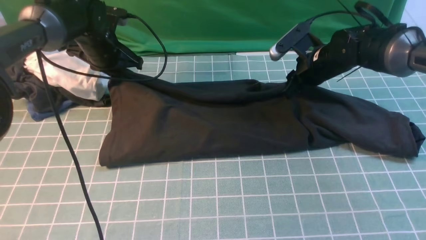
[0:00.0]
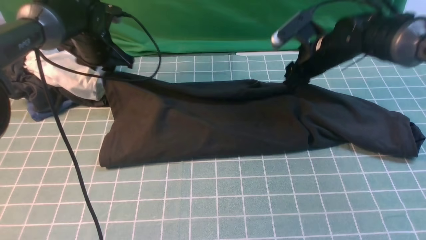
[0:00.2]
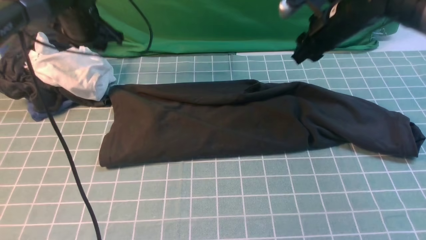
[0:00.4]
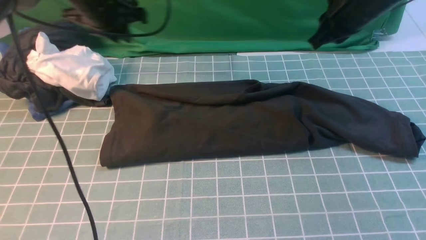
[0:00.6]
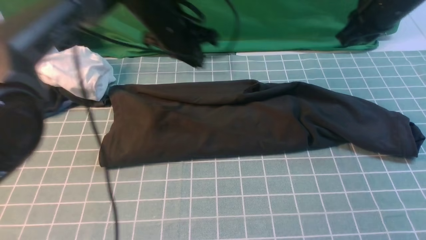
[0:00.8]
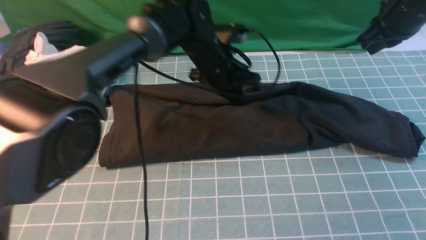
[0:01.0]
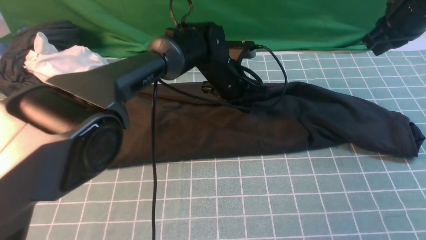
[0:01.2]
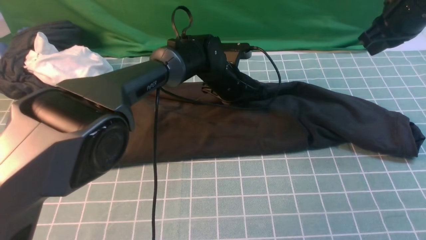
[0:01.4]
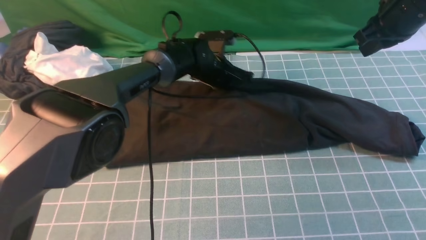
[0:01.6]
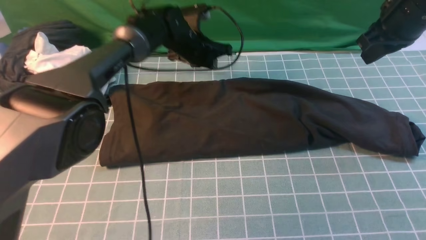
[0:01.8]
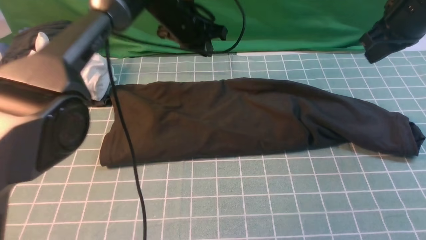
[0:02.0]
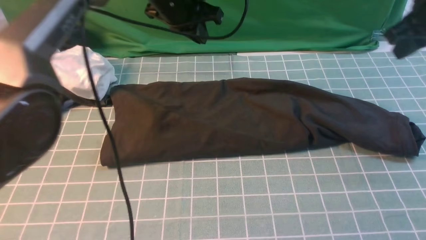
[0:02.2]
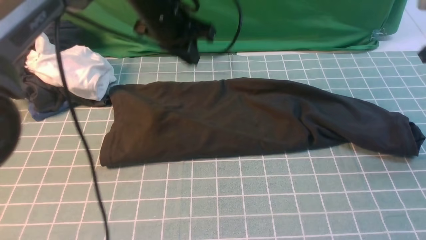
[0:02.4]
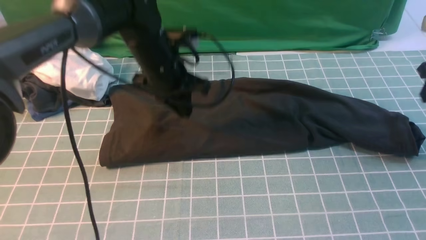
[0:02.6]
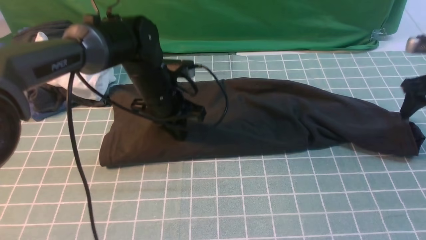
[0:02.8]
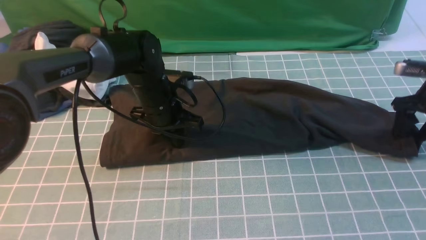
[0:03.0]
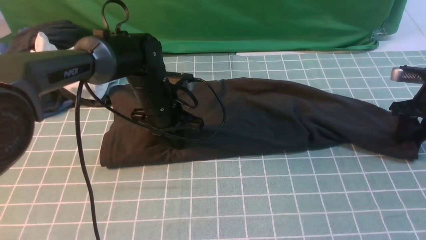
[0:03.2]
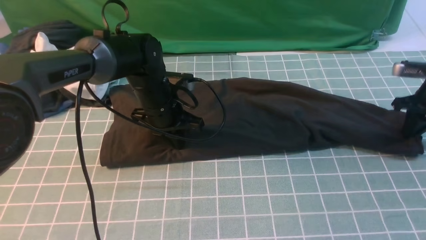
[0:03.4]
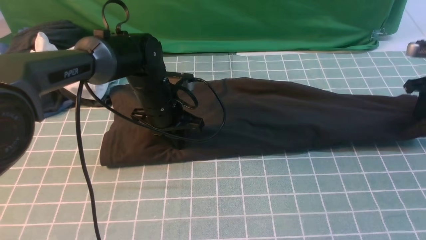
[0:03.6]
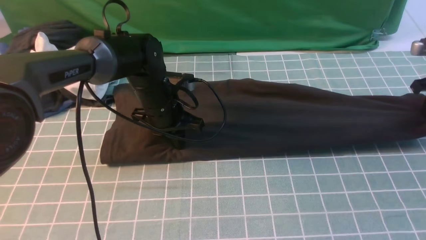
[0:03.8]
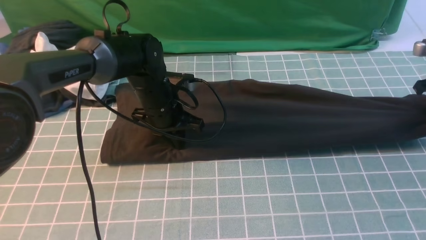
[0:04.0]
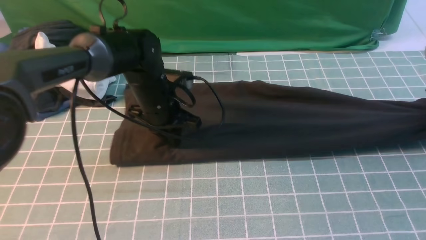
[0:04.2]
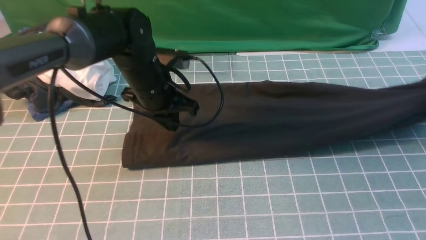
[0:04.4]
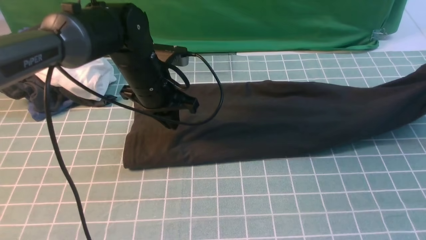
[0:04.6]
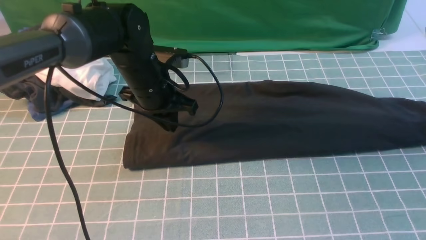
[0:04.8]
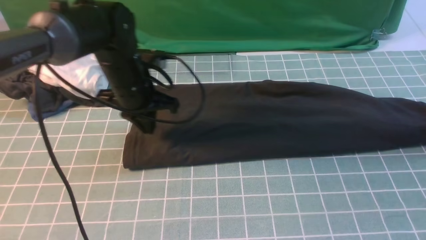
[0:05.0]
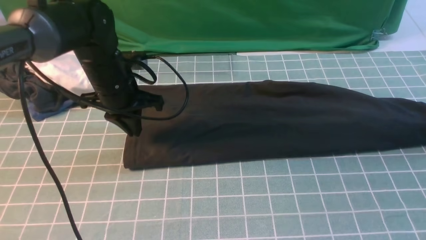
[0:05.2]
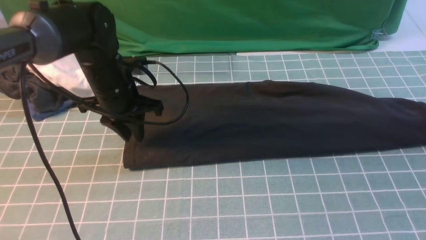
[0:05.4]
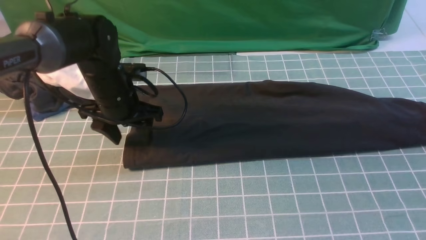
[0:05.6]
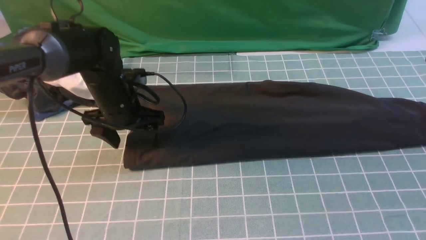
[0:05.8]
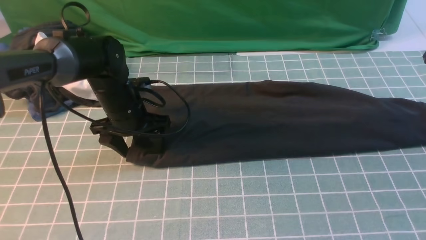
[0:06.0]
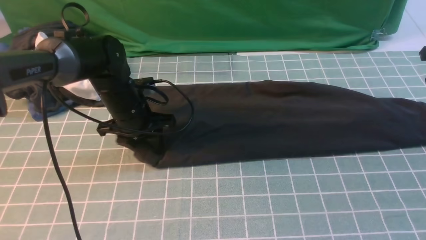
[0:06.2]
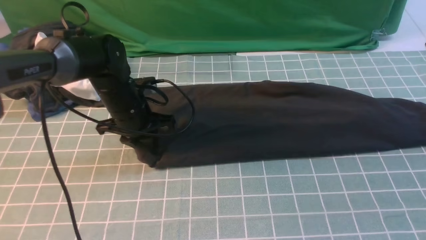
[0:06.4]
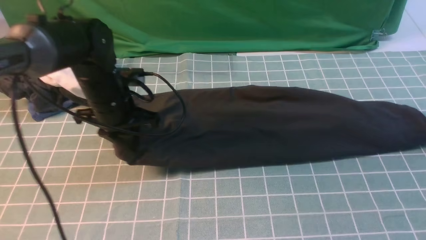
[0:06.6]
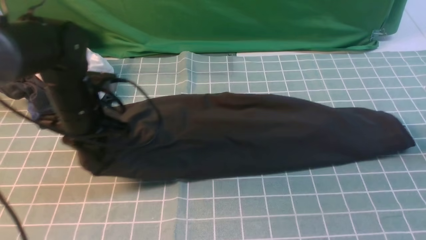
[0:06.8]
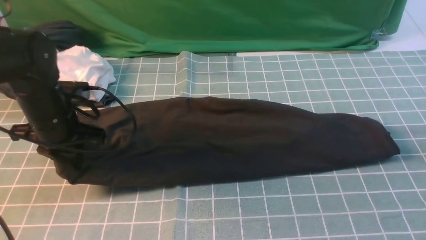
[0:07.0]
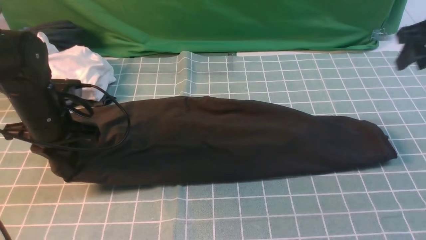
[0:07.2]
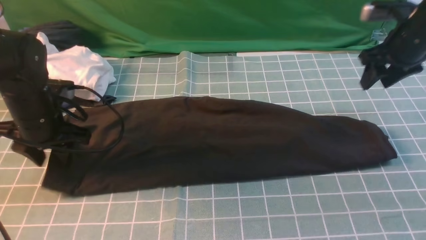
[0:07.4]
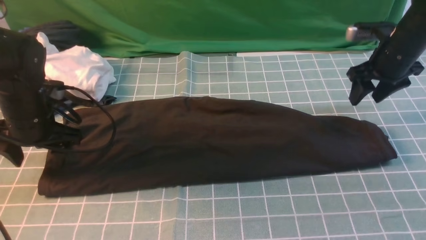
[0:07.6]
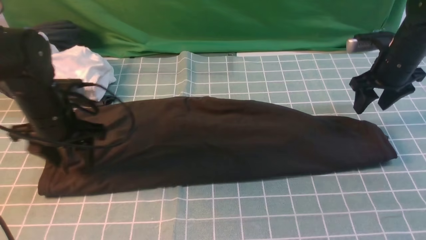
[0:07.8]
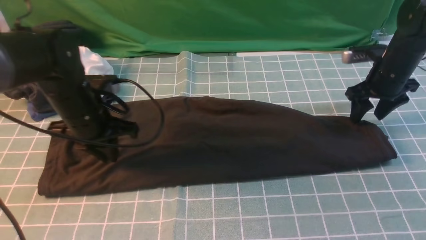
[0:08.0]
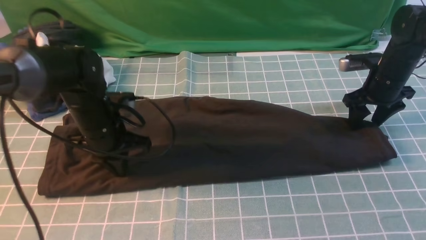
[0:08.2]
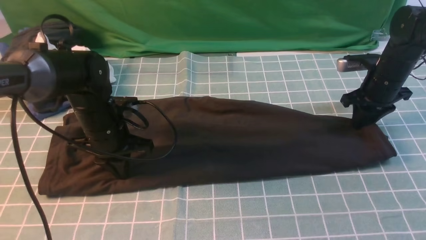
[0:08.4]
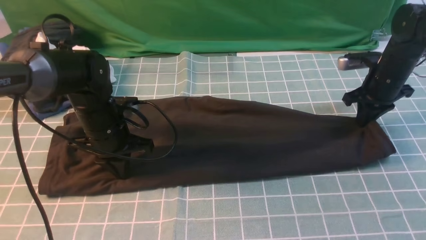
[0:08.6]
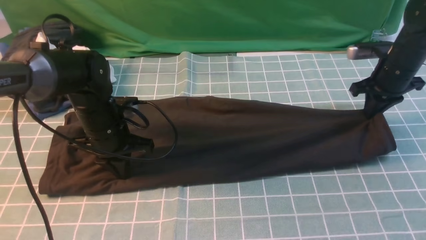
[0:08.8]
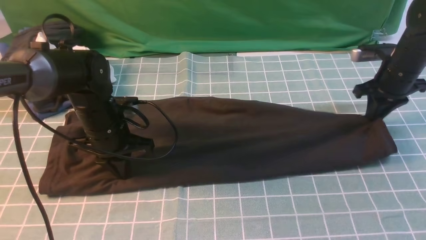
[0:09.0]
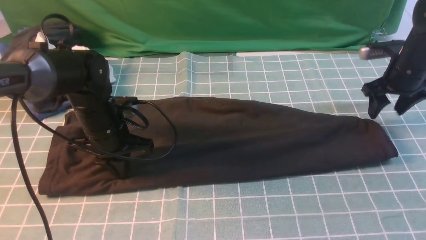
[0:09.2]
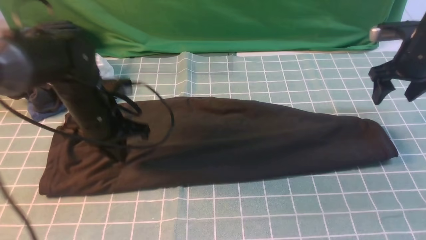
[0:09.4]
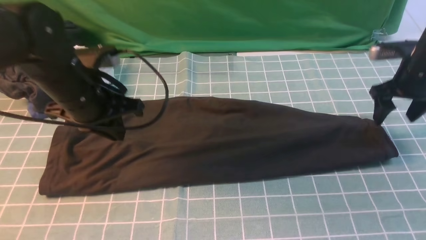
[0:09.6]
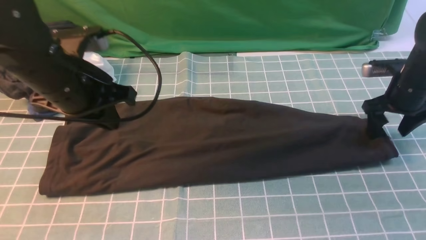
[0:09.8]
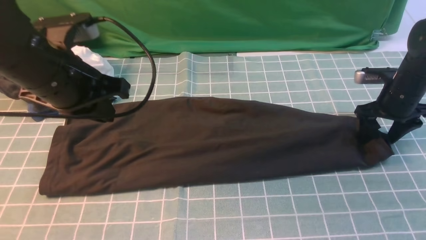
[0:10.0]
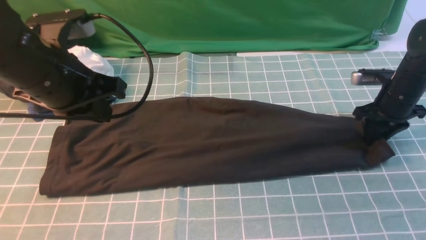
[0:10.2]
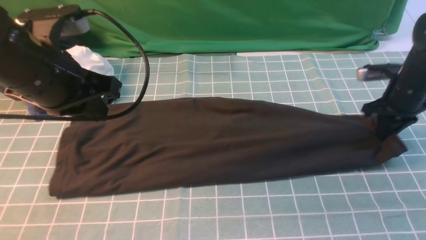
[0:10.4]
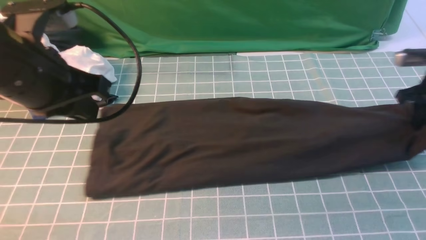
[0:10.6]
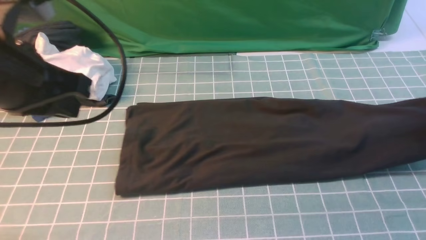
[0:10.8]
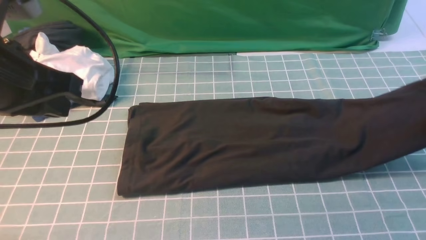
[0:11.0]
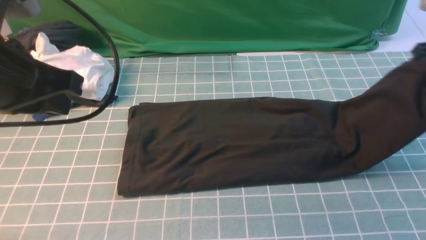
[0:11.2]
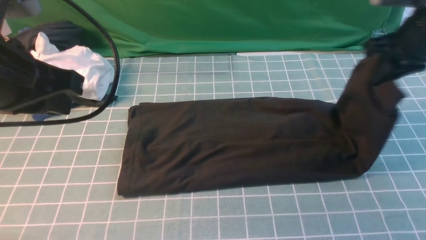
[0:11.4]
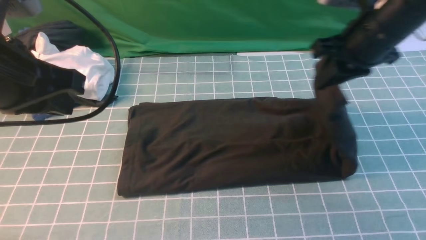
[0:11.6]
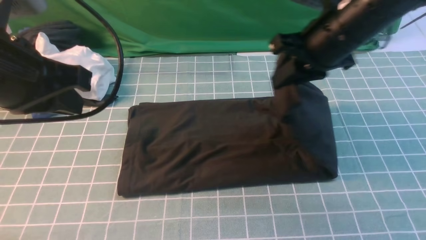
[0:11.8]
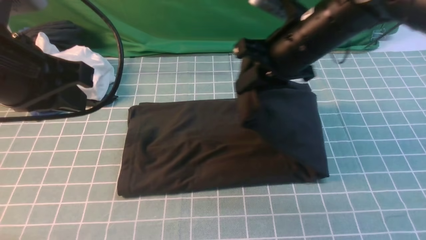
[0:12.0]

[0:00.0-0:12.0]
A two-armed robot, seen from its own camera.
Step, 0:00.8 to 0:10.4: use the right arm to clamp the right edge of the fabric.
0:00.0 to 0:01.6: The right gripper is displaced upward and to the right by approximately 15 cm, and closes its fingers. The left gripper heads to the right, covering roughly 20 cm.
0:01.6 to 0:03.0: The right gripper is displaced downward and to the right by about 20 cm, and opens; the left gripper travels backward and to the left by some 15 cm, and reaches some 15 cm upward, then returns.
0:03.0 to 0:04.4: The right gripper goes some 5 cm upward, and closes and opens again.
0:04.4 to 0:06.0: The left gripper goes some 5 cm to the left, and opens.
0:06.0 to 0:07.6: The left gripper is displaced to the left and backward by roughly 10 cm, and closes and opens again. The right gripper moves to the left, roughly 10 cm.
0:07.6 to 0:09.0: The left gripper shifts approximately 10 cm to the right, and closes up. The right gripper closes.
0:09.0 to 0:10.4: The left gripper is displaced upward and backward by about 20 cm. The right gripper opens, then closes again.
0:10.4 to 0:12.0: The left gripper changes place by about 5 cm. Meanwhile the right gripper goes some 30 cm to the left and upward.

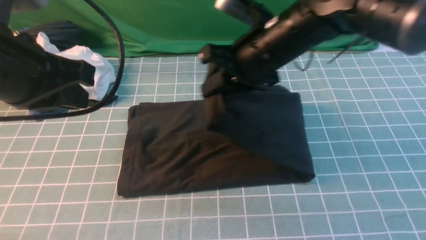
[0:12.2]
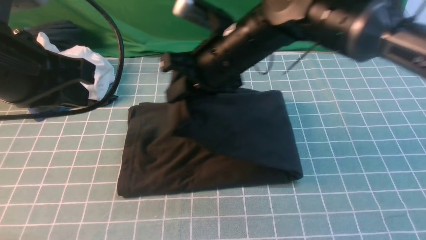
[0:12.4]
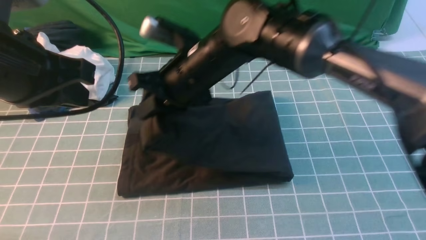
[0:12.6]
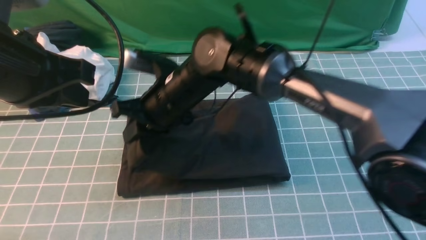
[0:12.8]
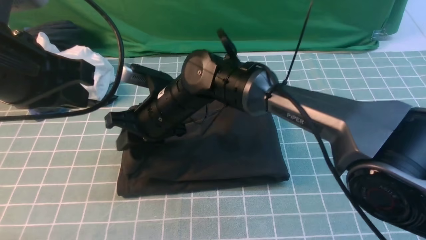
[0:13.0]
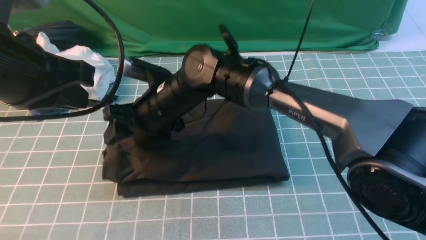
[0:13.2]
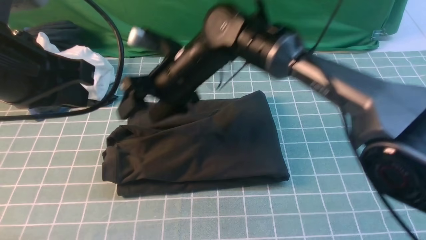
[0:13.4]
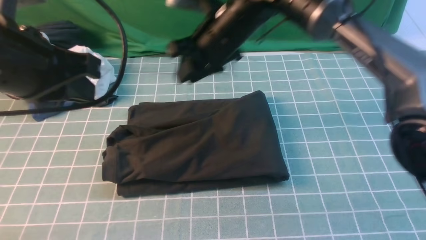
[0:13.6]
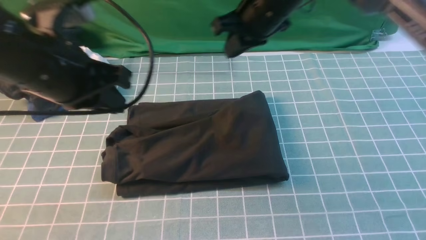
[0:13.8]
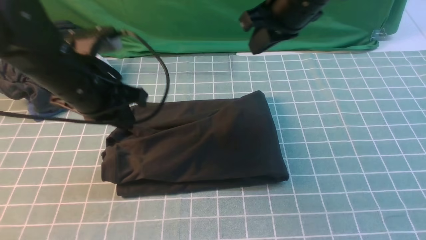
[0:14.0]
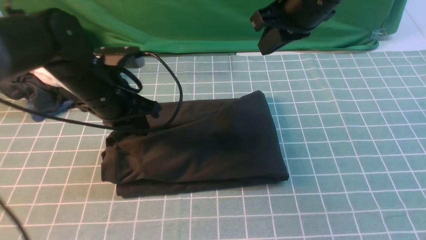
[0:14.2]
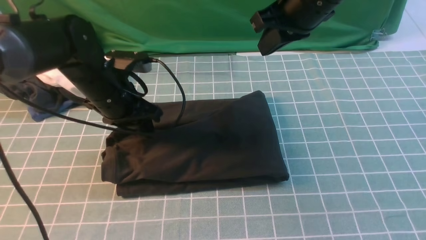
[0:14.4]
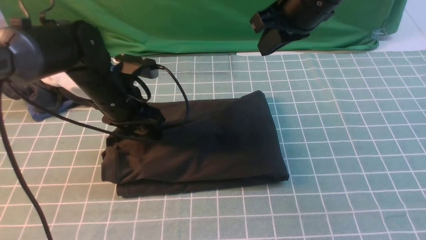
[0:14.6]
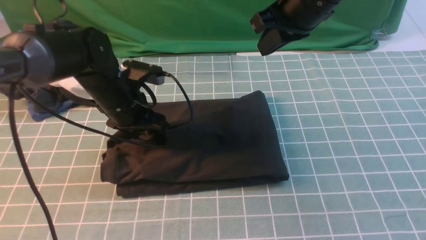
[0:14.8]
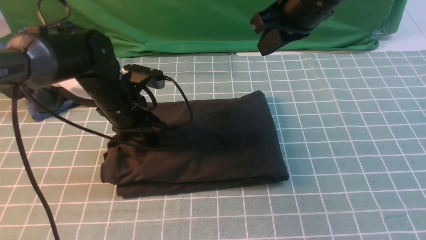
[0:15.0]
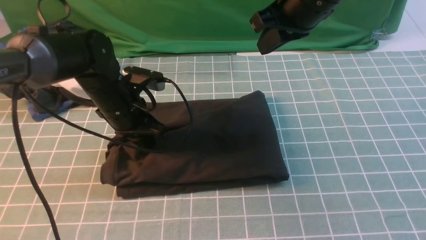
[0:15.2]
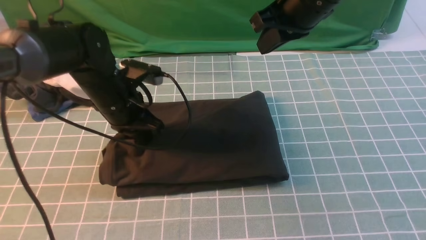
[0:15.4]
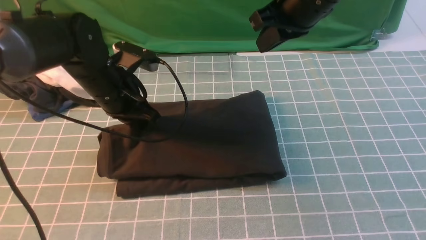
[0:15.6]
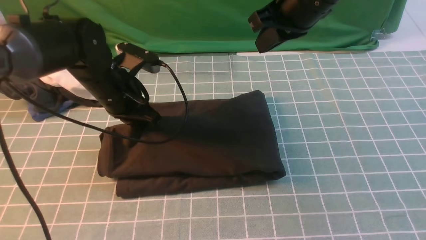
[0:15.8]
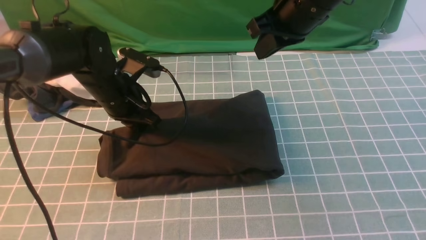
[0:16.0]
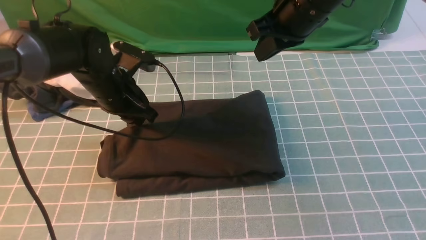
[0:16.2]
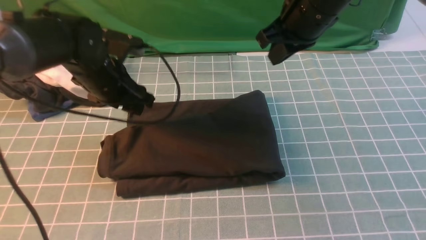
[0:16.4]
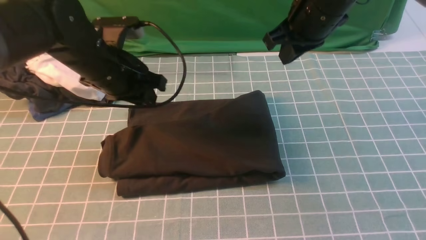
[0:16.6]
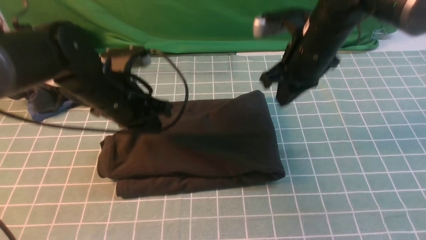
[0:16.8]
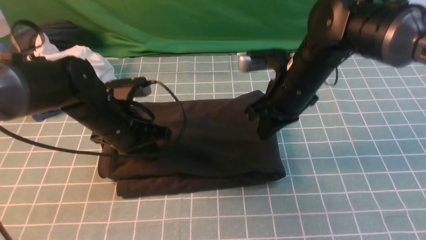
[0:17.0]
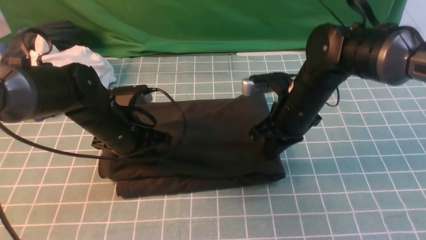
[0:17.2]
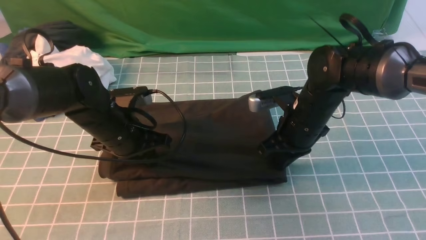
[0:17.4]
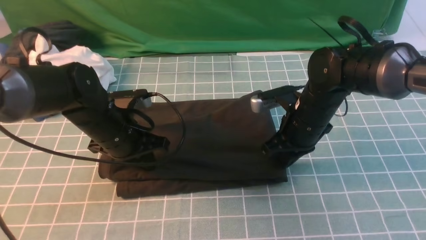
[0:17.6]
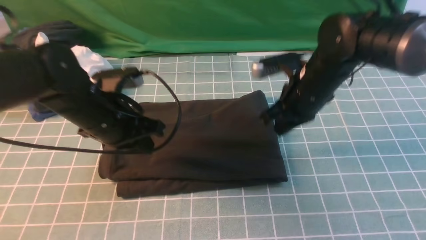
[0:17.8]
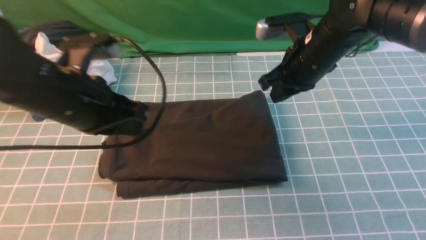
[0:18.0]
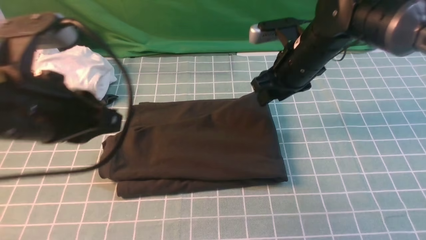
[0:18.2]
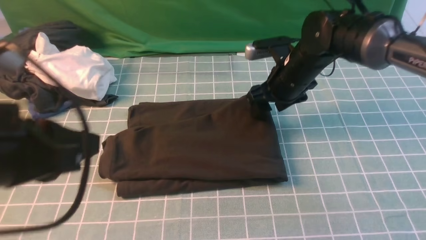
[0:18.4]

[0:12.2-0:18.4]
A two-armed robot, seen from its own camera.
0:12.2 to 0:13.8: The right gripper travels forward by roughly 5 cm, moves some 15 cm to the left and comes back, and opens, then closes once more, while the left gripper is displaced forward and downward by some 10 cm.
0:13.8 to 0:15.4: The right gripper ends up some 5 cm from where it was. Meanwhile the left gripper shifts some 15 cm downward and forward, and opens and closes again.
0:15.4 to 0:16.8: The left gripper opens, then closes once more. The right gripper goes about 10 cm downward.
0:16.8 to 0:18.4: The right gripper goes up and down, roughly 10 cm each way, reversing 2 times, and opens; the left gripper travels backward and upward by roughly 25 cm.
